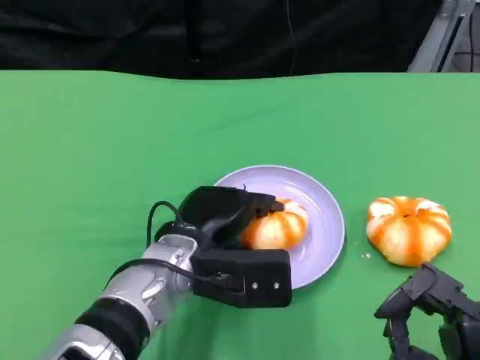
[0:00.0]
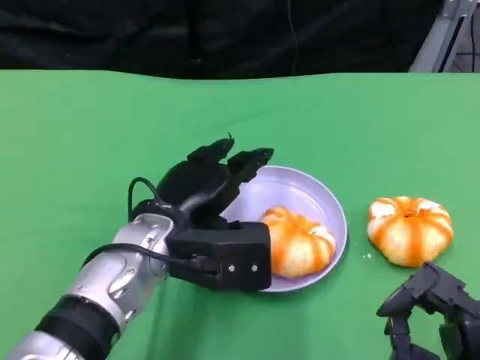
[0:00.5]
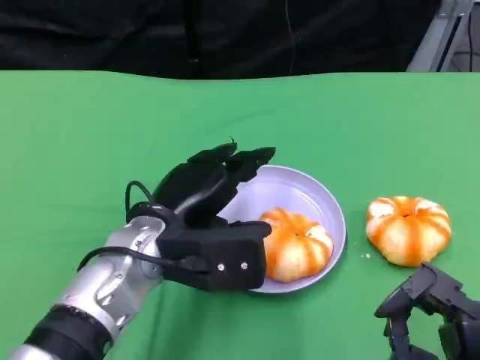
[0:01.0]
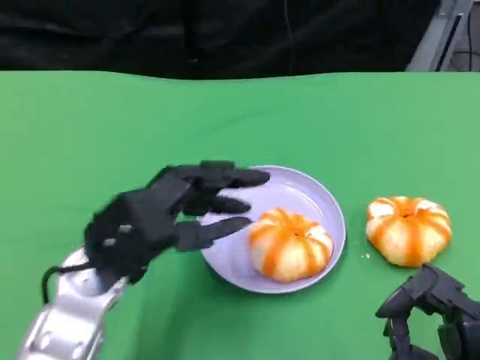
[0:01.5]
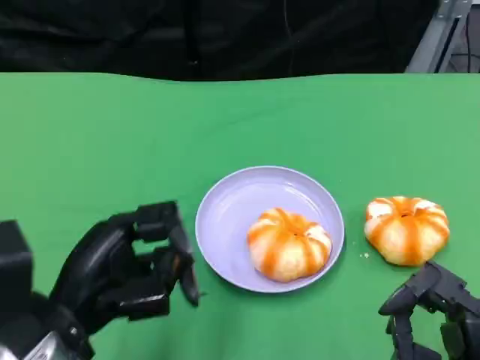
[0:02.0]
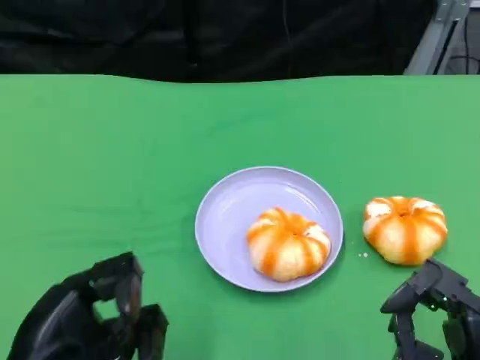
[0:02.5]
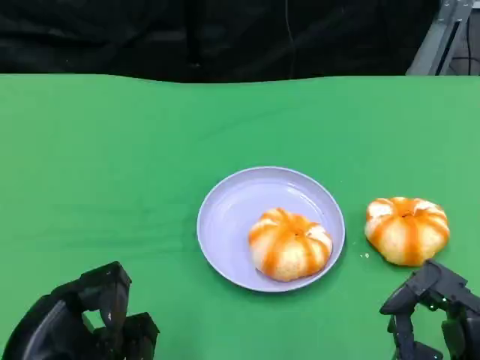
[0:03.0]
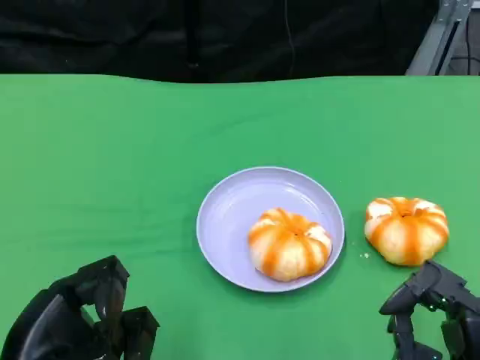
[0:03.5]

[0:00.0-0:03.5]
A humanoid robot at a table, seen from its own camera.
Task of the whole recording: Grasp the bread from the table and place it into the plate.
0:00.0 to 0:02.0: The left hand travels to the left and backward by about 15 cm.
0:02.0 to 0:03.5: The left hand heads backward, covering about 5 cm.

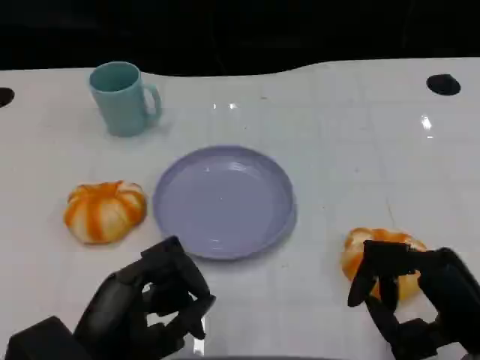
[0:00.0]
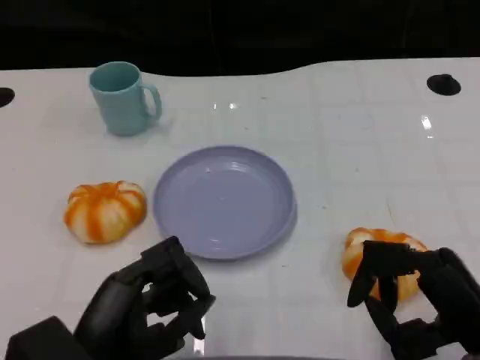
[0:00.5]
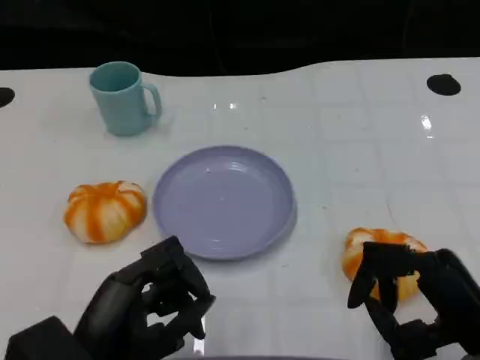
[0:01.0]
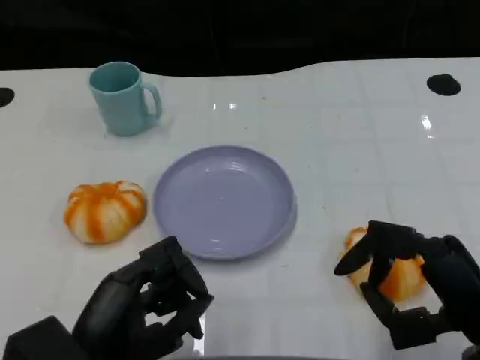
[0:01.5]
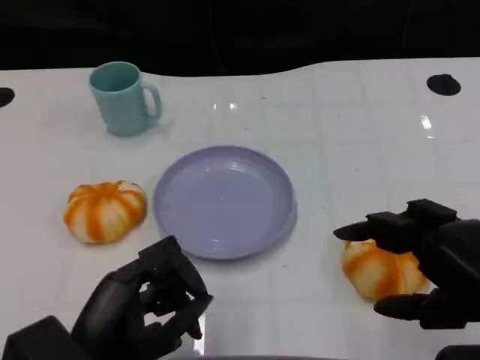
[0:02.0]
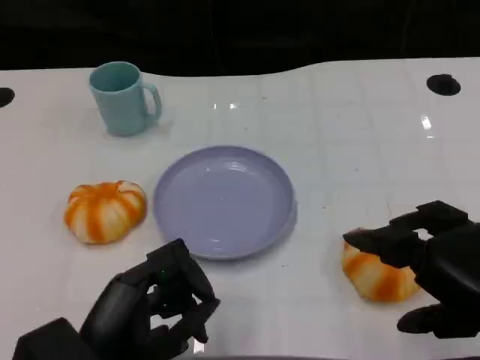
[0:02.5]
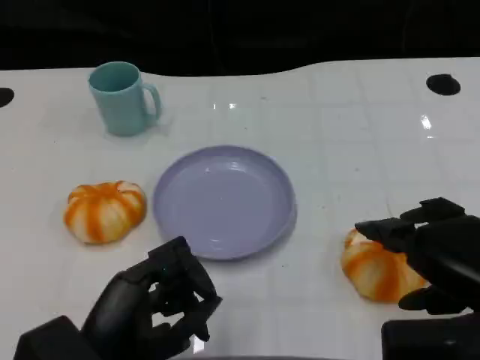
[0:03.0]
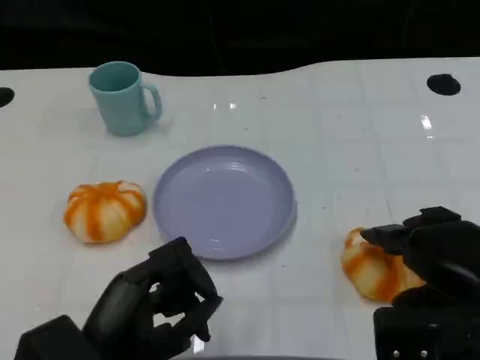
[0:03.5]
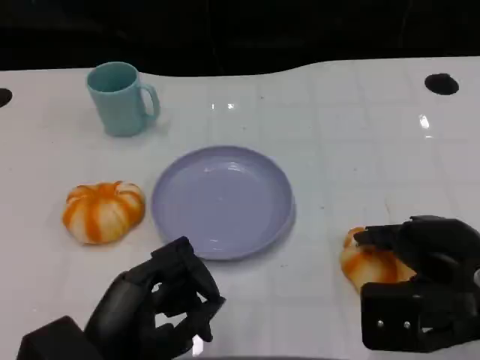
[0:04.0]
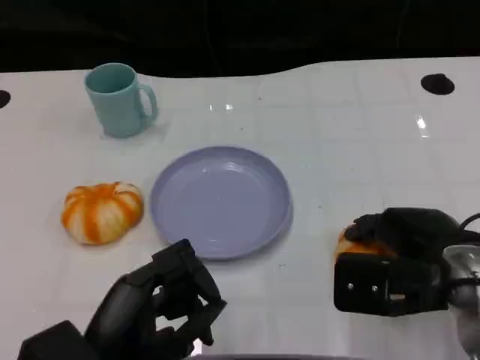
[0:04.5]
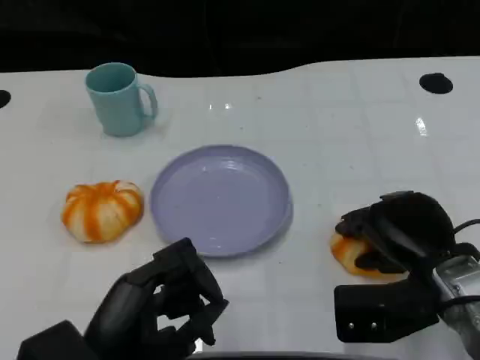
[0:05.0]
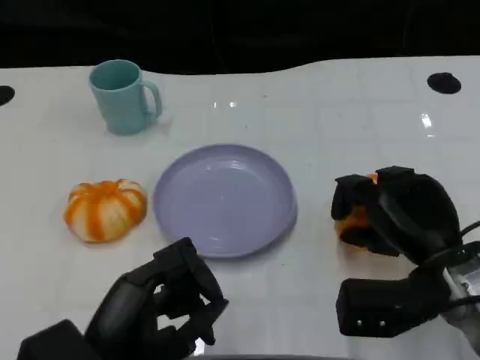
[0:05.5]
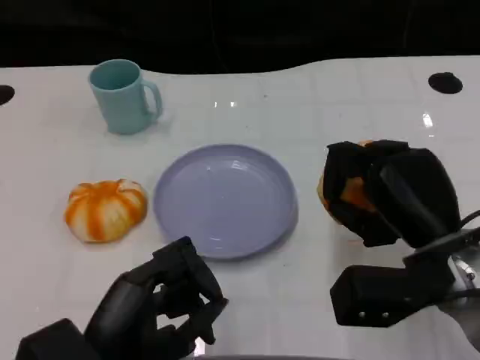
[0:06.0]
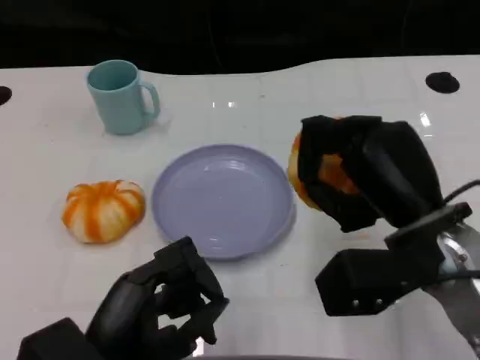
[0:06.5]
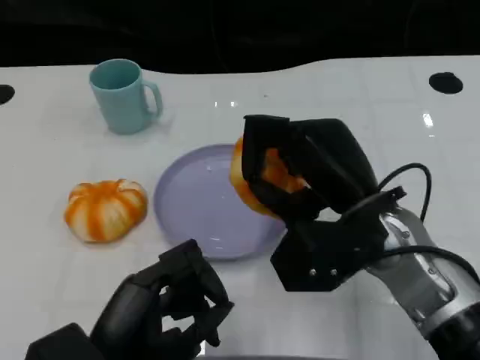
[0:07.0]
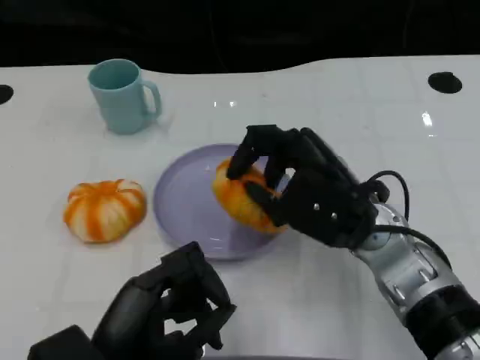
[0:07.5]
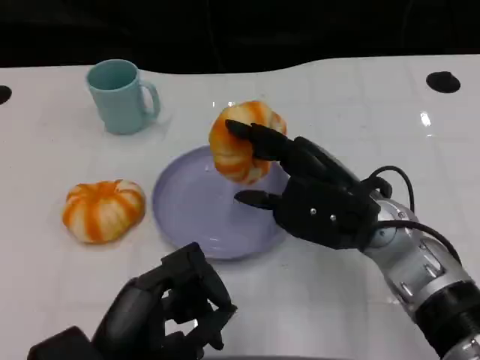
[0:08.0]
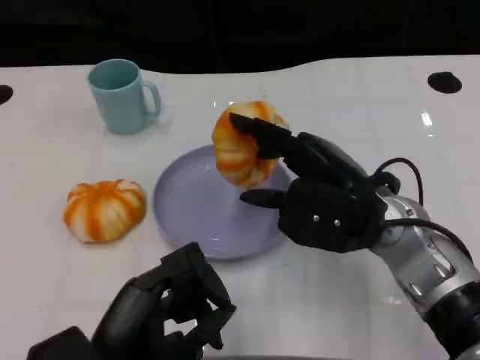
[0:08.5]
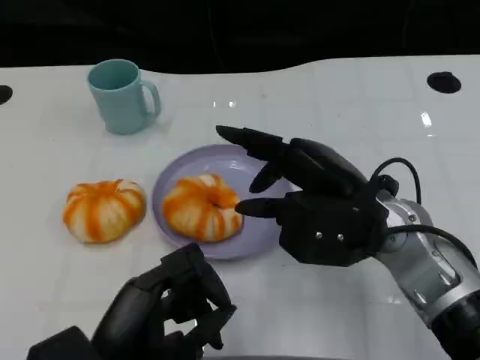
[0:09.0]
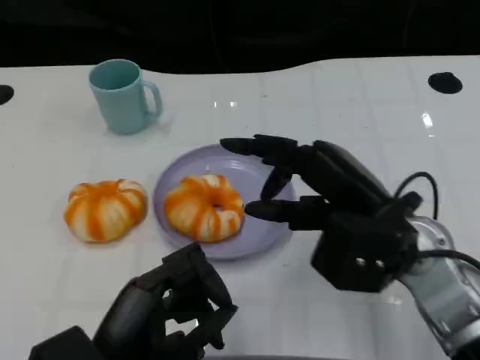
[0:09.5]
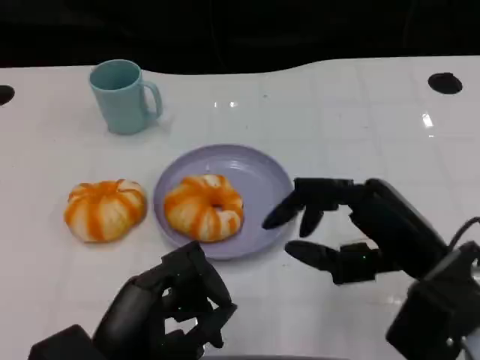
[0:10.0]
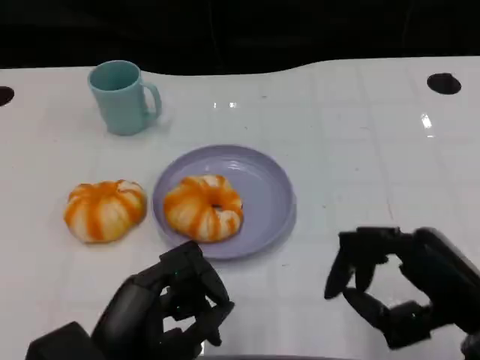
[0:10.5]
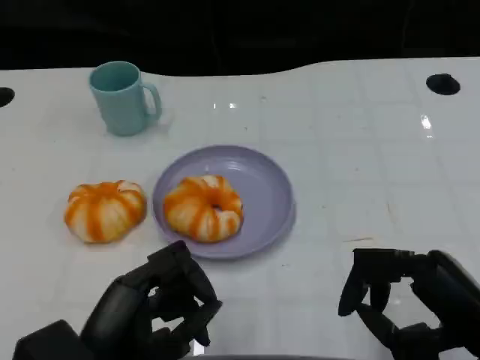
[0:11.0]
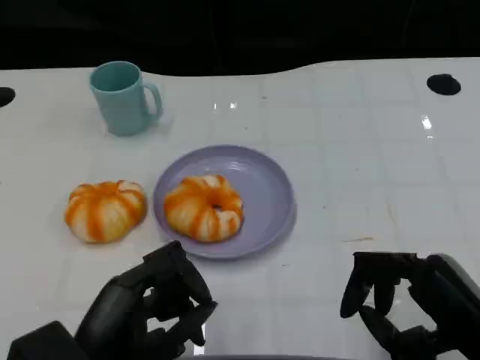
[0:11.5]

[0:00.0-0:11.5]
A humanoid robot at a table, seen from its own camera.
Task of the whole recording: Grasp the bread from the table and place it into the plate.
0:00.0 to 0:02.0: The right hand travels upward by approximately 10 cm.
0:02.0 to 0:04.0: The right hand is displaced forward by roughly 5 cm.
0:06.0 to 0:07.5: The right hand moves to the left, roughly 5 cm.
0:07.5 to 0:09.5: The right hand changes place by approximately 5 cm.
0:09.5 to 0:11.5: The right hand shifts about 10 cm backward and to the right.

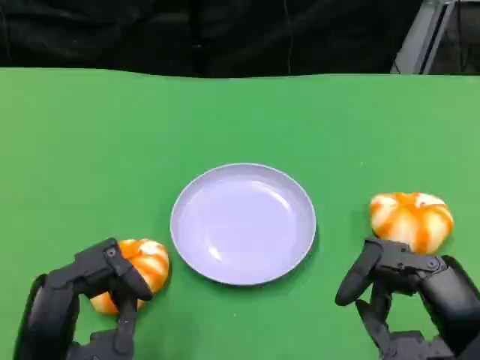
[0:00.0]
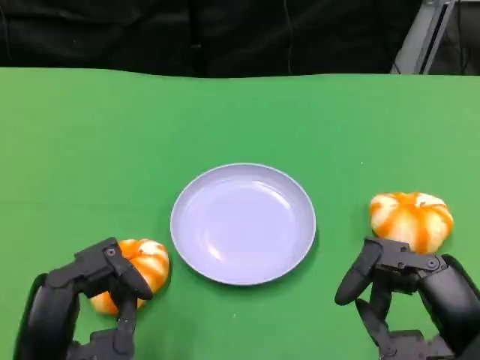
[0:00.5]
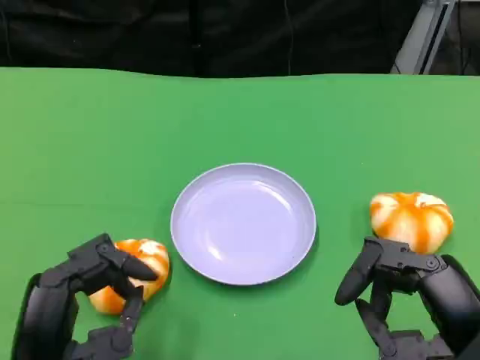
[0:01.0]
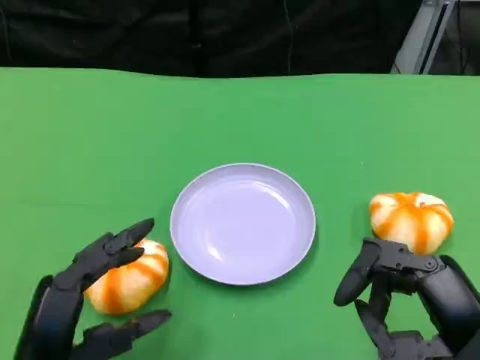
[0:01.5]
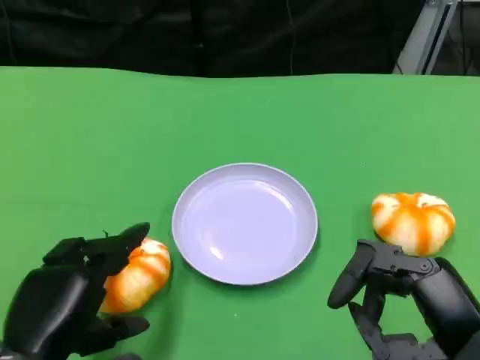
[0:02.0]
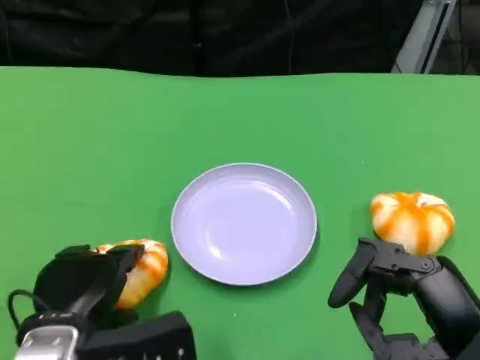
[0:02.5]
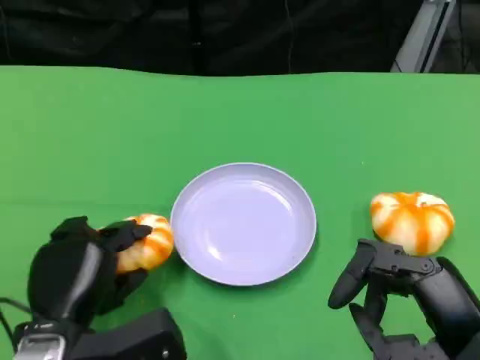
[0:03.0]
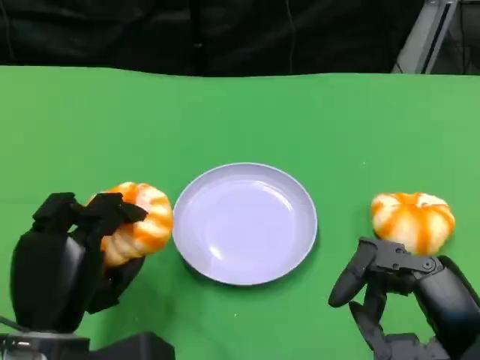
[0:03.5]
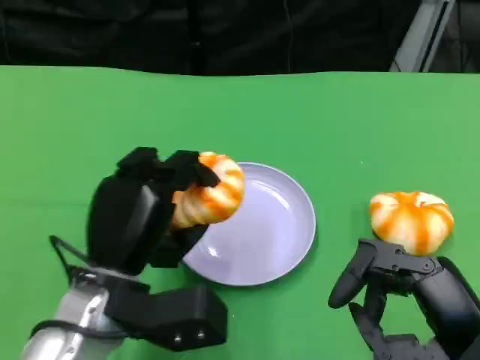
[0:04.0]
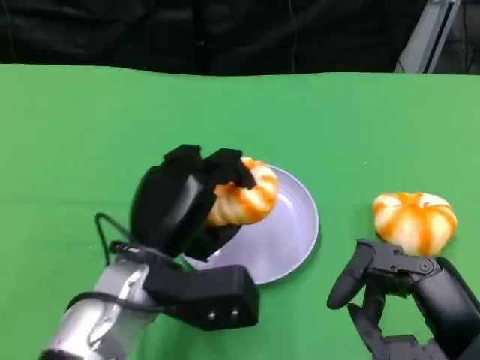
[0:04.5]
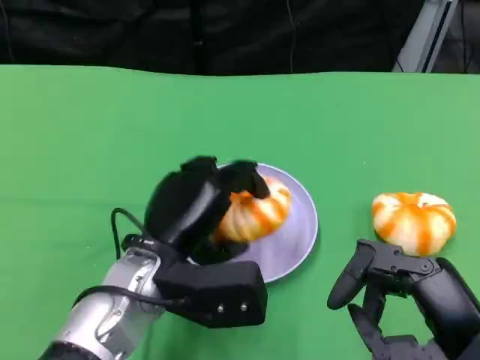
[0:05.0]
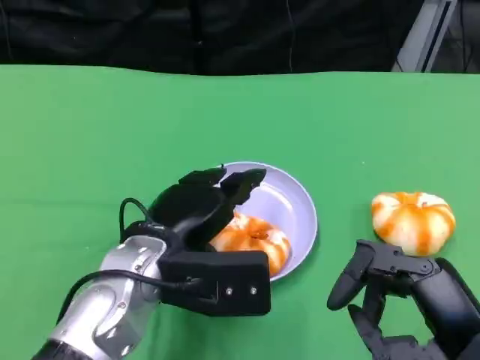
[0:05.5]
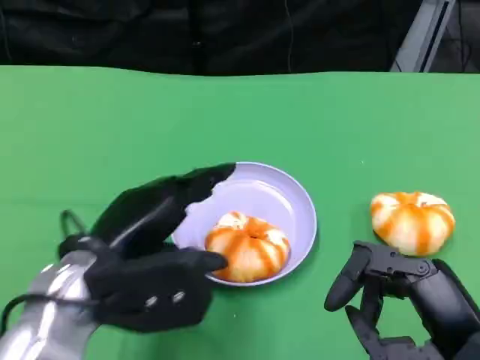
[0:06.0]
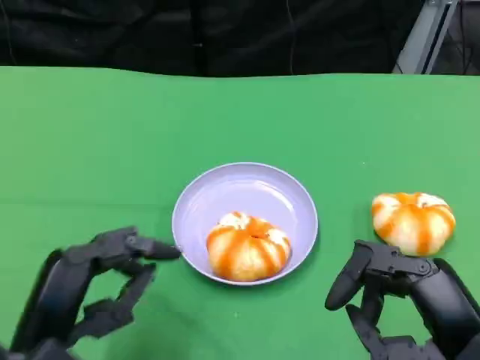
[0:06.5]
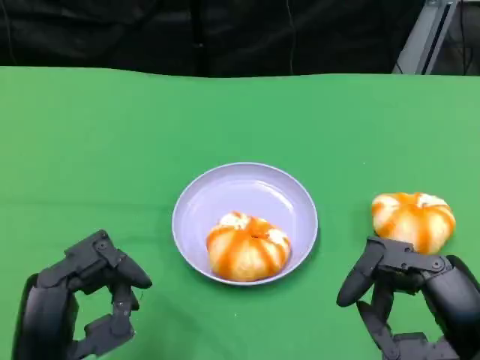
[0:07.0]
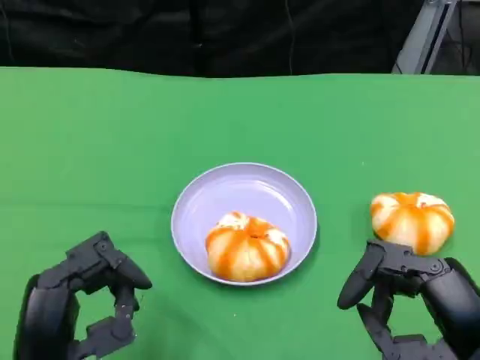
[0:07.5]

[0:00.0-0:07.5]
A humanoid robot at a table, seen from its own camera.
Task of the whole recording: Grasp the bread from the table and place it into the plate.
0:02.0 to 0:04.0: The left hand shifts about 10 cm forward and to the right.
0:05.5 to 0:07.5: The left hand goes about 15 cm backward and to the left.

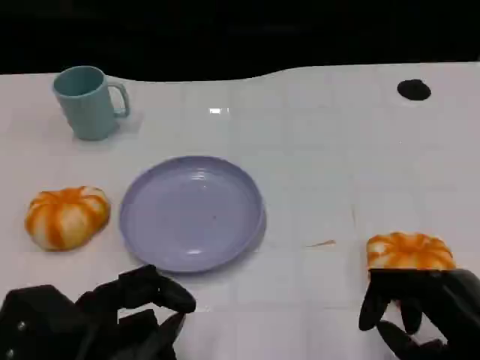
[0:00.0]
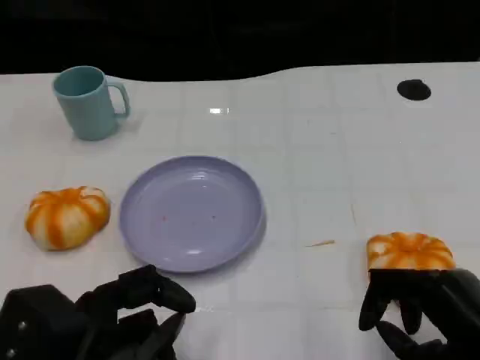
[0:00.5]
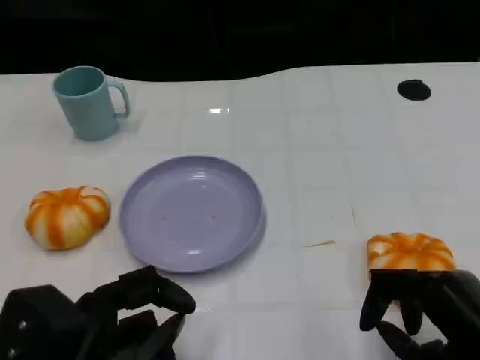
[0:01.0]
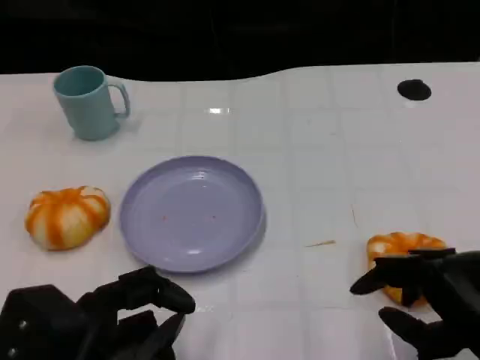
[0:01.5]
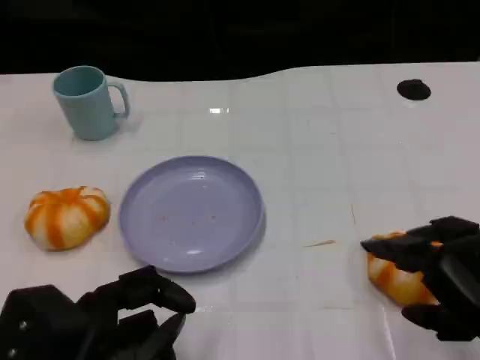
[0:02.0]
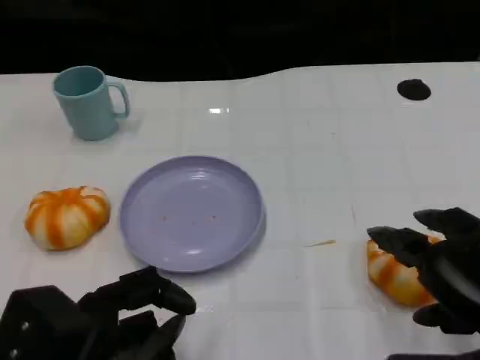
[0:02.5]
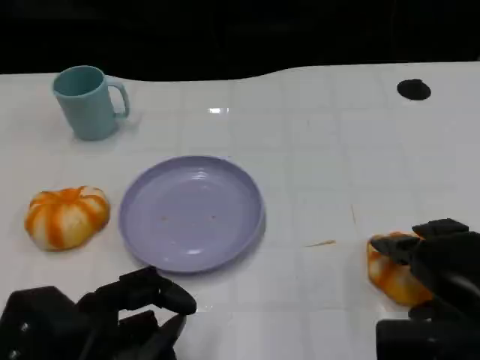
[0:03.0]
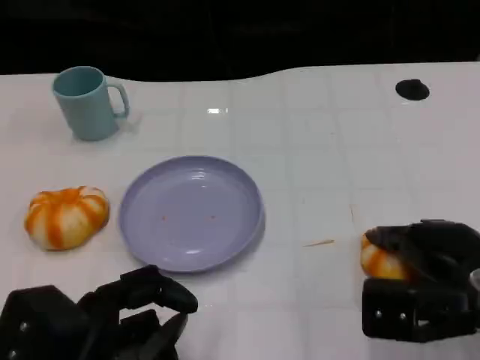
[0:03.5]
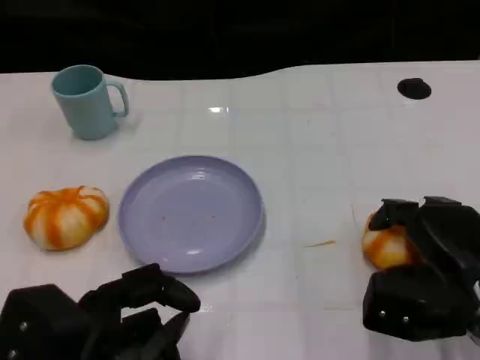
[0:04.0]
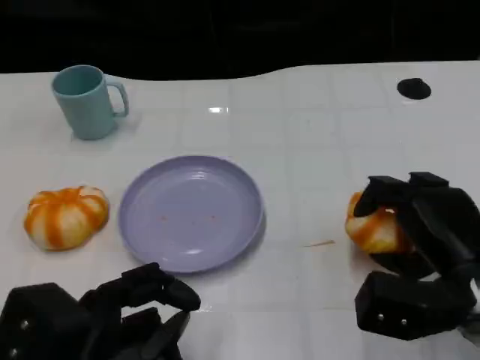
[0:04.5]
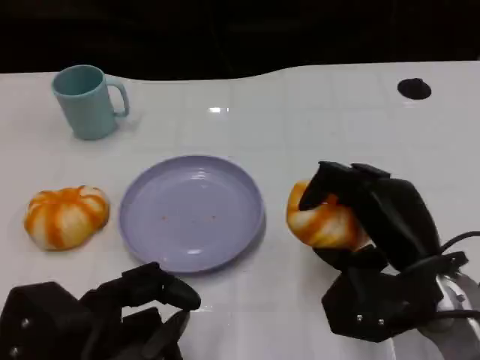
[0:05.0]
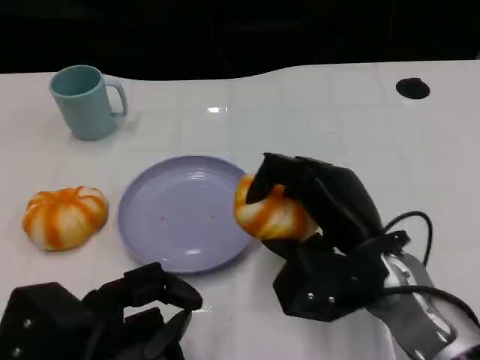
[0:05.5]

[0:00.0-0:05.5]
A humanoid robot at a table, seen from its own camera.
Task of the whole recording: Grasp the bread from the table and place it into the plate.
0:00.0 to 0:02.0: The right hand travels upward by about 5 cm.
0:02.0 to 0:03.5: The right hand heads forward, covering some 10 cm.
0:03.5 to 0:05.5: The right hand moves to the left, about 10 cm.
